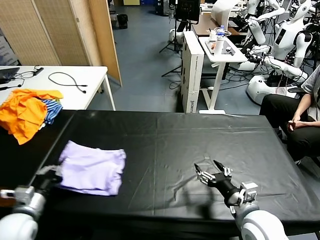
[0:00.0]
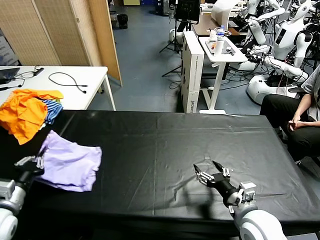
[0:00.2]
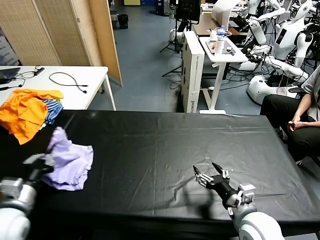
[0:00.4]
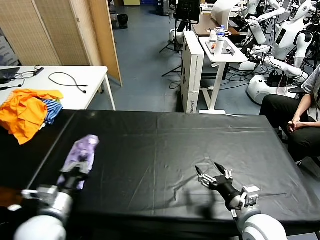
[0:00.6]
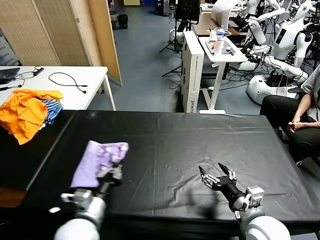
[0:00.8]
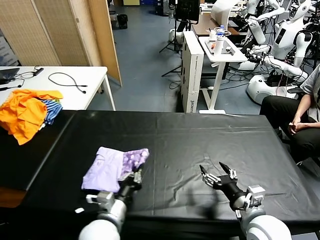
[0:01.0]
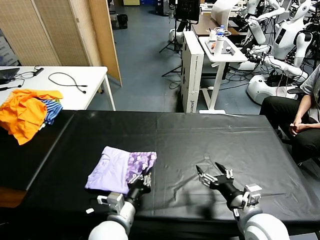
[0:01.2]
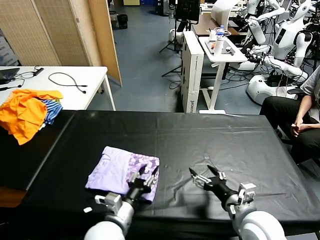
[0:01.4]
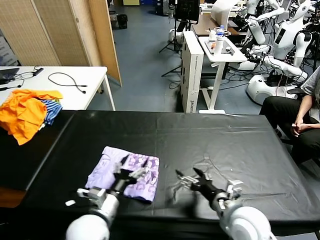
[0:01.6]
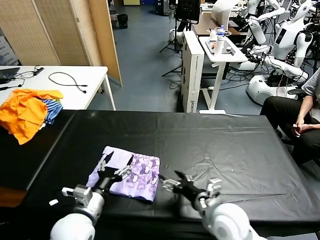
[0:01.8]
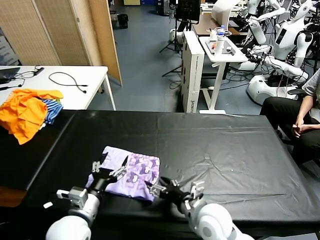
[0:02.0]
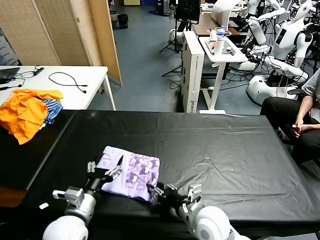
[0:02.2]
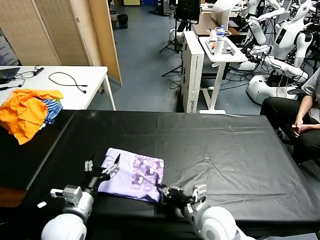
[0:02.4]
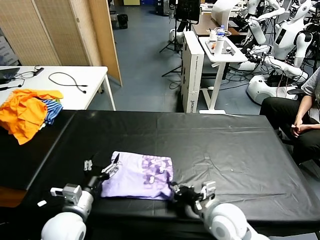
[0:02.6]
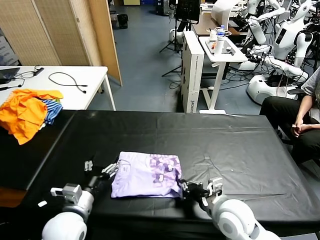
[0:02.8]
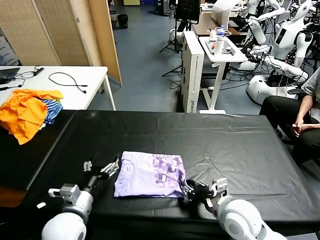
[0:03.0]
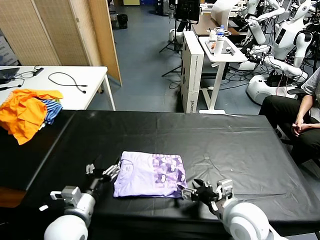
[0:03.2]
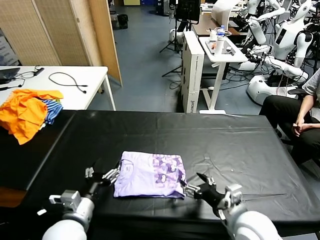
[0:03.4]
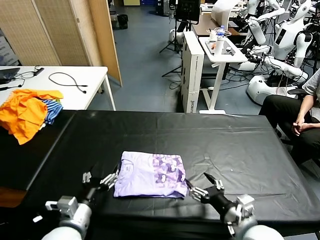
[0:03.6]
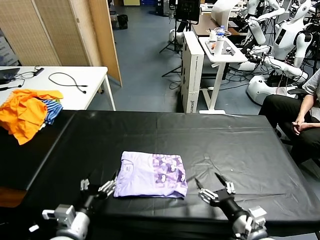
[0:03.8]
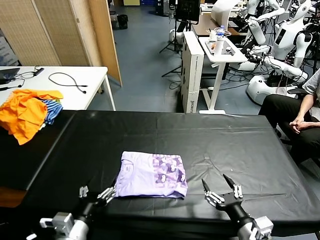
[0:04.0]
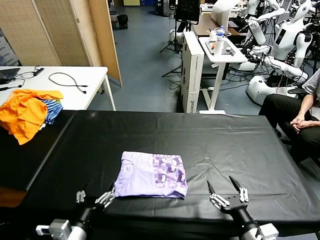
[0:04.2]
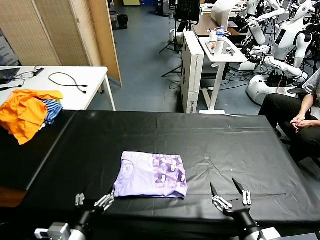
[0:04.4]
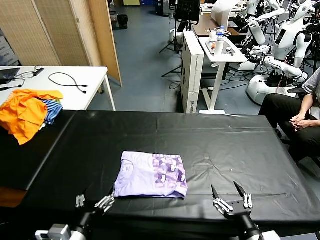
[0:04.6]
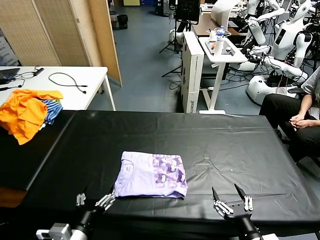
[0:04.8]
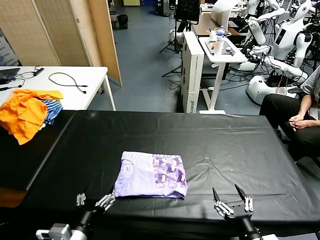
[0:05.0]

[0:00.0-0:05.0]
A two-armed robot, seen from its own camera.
Task of the whole recording: fold and organize the clothes.
Step, 0:01.8 to 0:03.4: Drag the clothes to the center of the table.
0:00.0 to 0:01.6: The left gripper heads to the right, covering roughly 20 cm, and opens.
0:01.6 to 0:03.4: The right gripper reaches approximately 10 cm to the left, then returns, and closes and opens again, while the left gripper is displaced to the left by some 5 cm.
0:03.4 to 0:05.0: The left gripper goes about 10 cm backward. The right gripper goes roughly 15 cm backward and downward.

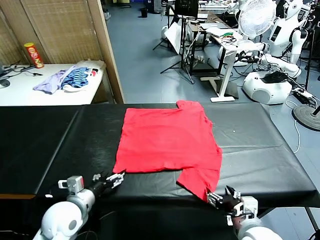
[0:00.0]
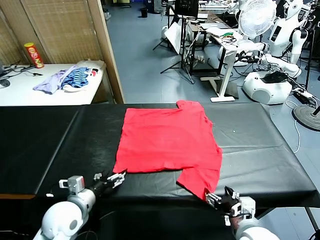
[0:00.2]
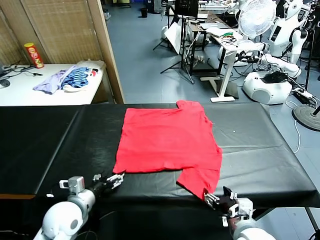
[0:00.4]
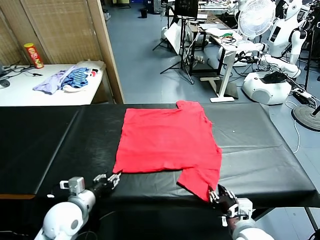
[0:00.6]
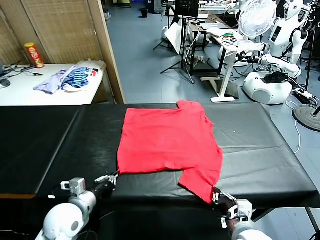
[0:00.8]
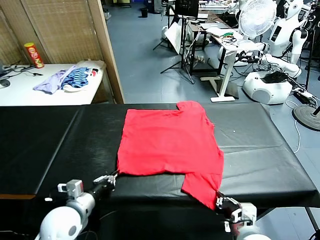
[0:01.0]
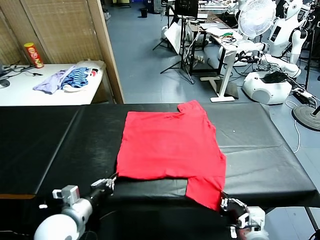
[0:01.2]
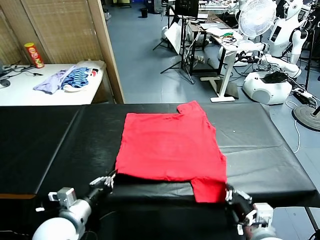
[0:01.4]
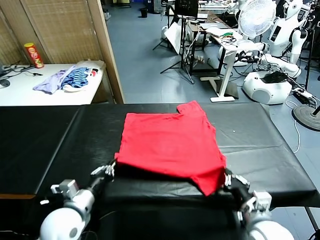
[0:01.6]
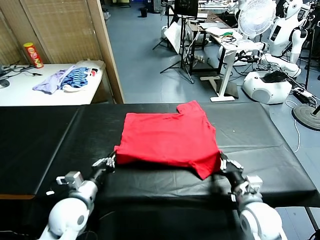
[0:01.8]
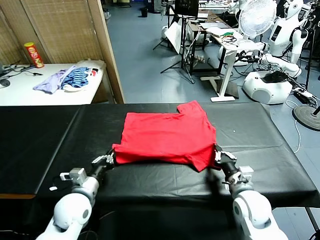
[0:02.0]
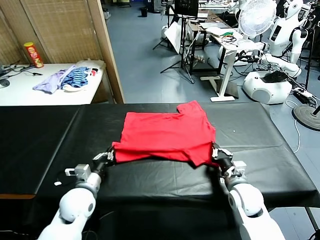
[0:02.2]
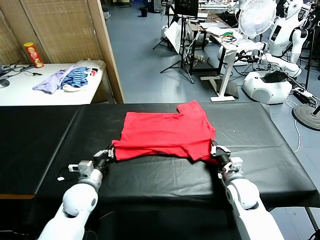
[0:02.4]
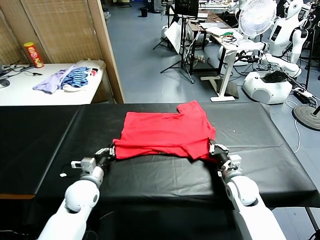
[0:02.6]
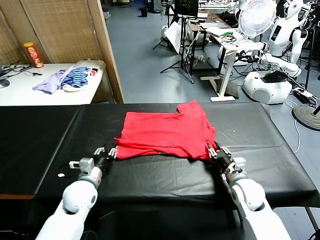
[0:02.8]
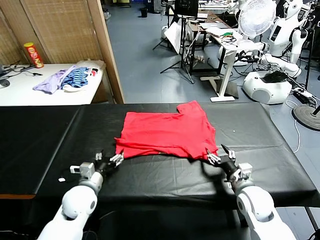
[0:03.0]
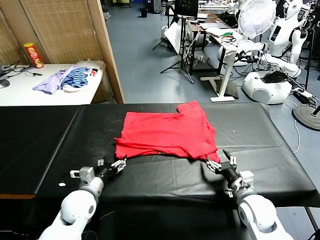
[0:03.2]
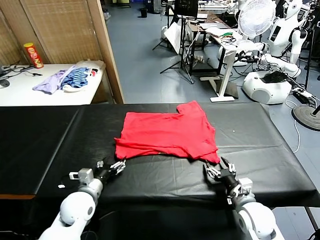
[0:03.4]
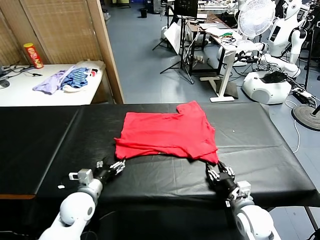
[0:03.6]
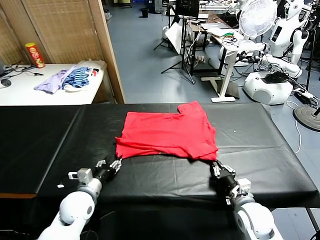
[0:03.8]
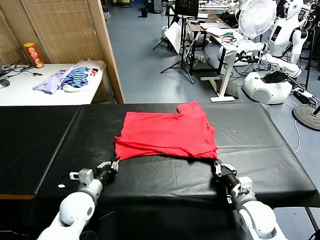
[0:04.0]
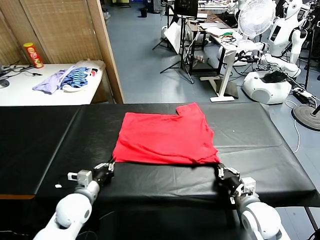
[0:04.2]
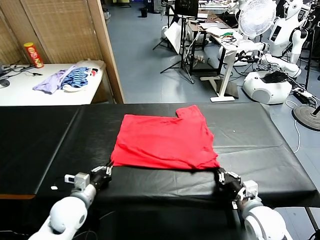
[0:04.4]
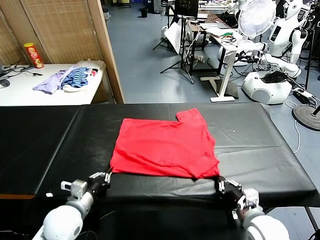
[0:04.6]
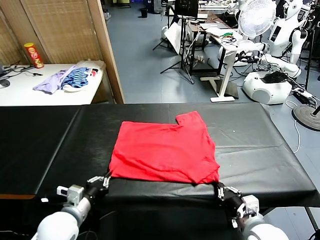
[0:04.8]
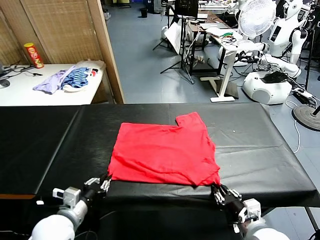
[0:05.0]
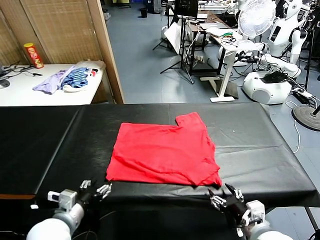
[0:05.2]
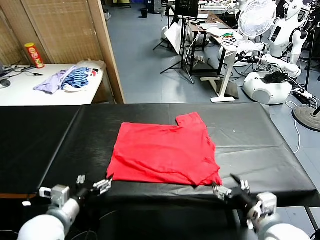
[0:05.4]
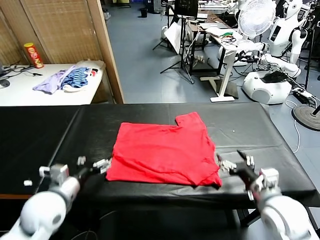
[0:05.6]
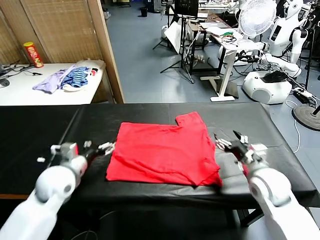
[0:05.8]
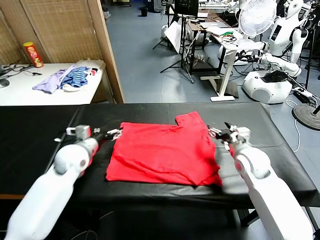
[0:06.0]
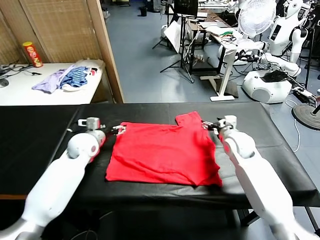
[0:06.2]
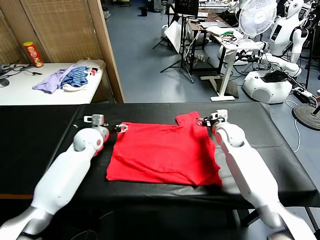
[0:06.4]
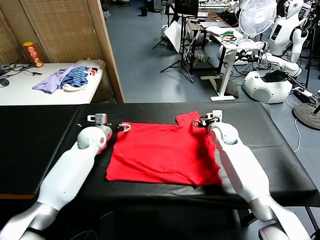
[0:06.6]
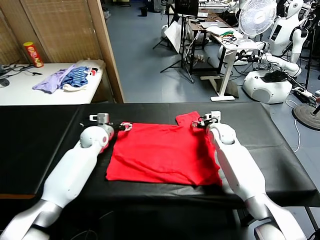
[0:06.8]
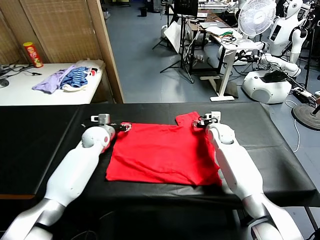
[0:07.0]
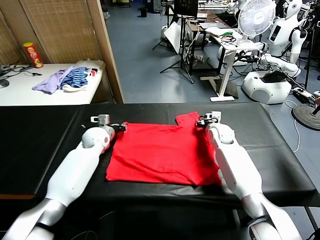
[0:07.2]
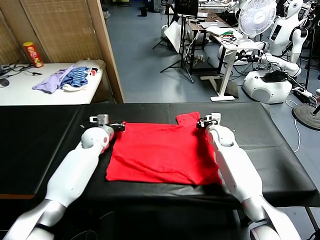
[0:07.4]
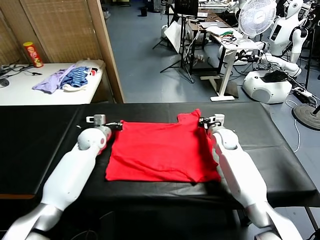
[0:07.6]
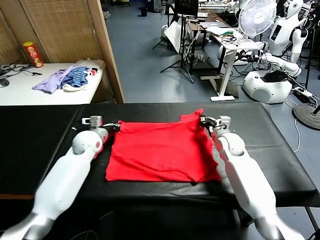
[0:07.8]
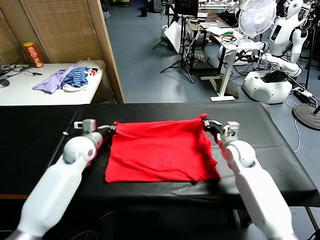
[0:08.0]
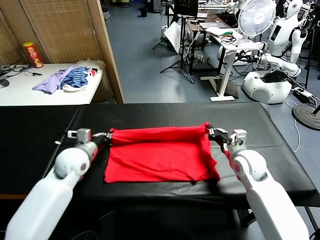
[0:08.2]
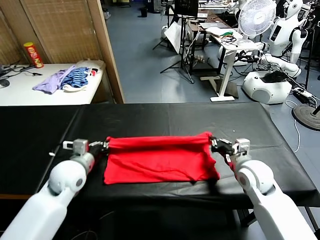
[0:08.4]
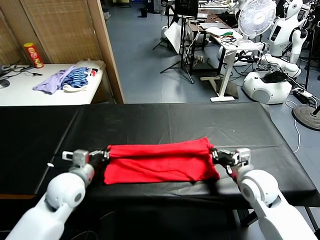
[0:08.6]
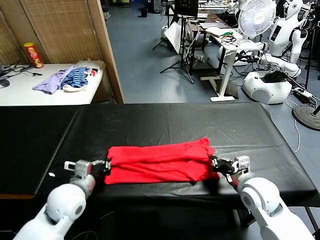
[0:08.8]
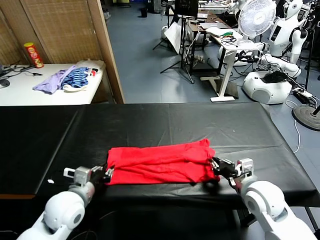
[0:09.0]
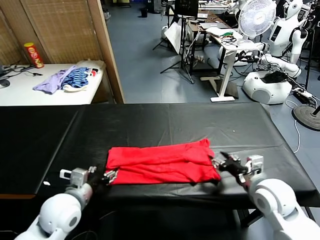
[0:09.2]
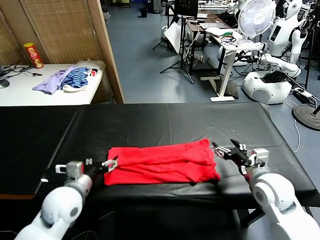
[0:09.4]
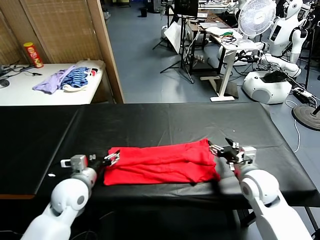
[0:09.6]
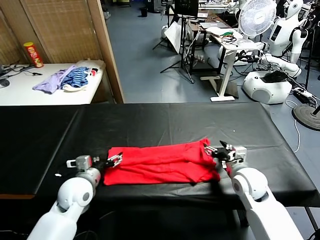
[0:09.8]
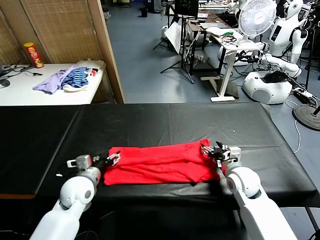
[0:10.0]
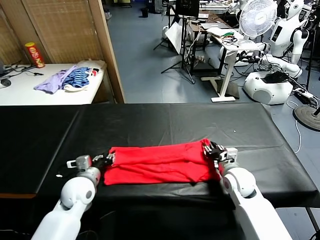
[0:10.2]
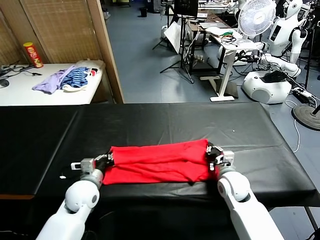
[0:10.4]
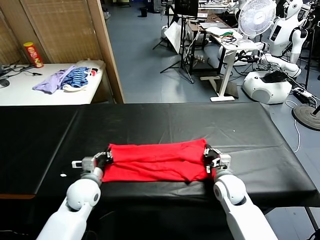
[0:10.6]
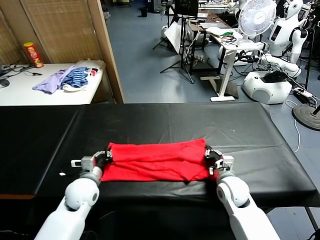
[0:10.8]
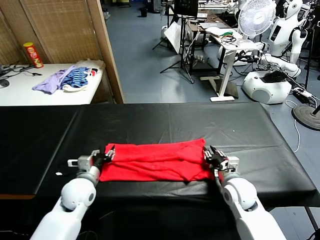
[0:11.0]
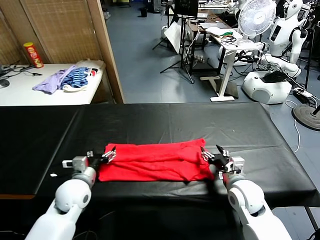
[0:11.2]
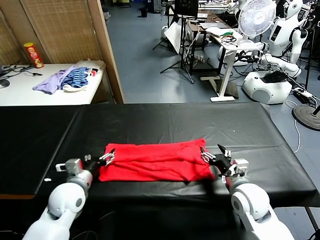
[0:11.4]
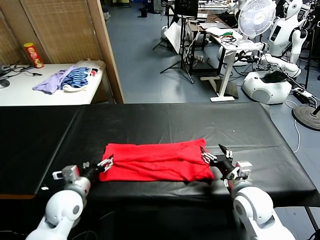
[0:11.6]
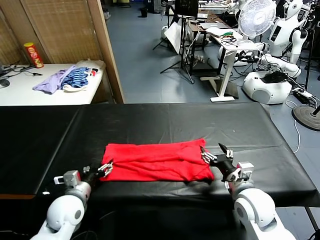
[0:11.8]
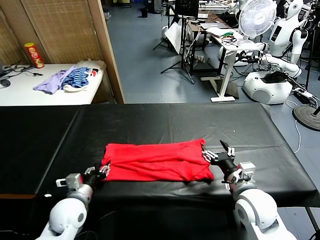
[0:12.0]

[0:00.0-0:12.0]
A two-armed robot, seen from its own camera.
Task of the whole recording: fold and organize the clothes.
Step, 0:00.0 to 0:01.0: use both grippers simultaneously to clamp the lower edge of the clothing fabric.
Step, 0:01.2 to 0:02.8: use both grippers to drag the lower edge of the fabric forward and fold it over the upper edge.
Step, 0:03.0 to 0:05.2: Drag the clothes downward with both gripper.
Step, 0:05.4 to 0:07.6: use both grippers simultaneously to clamp the upper edge of the clothing fabric.
Step, 0:08.0 to 0:09.0: use both grippers to drag the upper edge of the fabric backward and fold it over the lower edge.
0:01.6 to 0:03.0: The right gripper travels forward and back again, approximately 10 cm each way, and opens its fingers; the left gripper shifts roughly 10 cm forward and downward, and opens.
0:03.0 to 0:04.4: The right gripper heads backward, covering approximately 5 cm, and closes its fingers. The left gripper closes.
0:04.4 to 0:06.0: The left gripper is displaced forward and upward by some 20 cm, and opens; the right gripper is displaced forward by approximately 25 cm, and opens.
0:06.0 to 0:07.6: The right gripper reaches roughly 10 cm forward, then returns, and closes; the left gripper is displaced forward by about 10 cm, and closes.
0:07.6 to 0:09.0: The grippers both shift backward by roughly 25 cm. The left gripper opens. The right gripper opens its fingers.
0:09.0 to 0:10.4: The left gripper is displaced forward and downward by approximately 10 cm, and closes. The right gripper goes about 15 cm downward, forward and to the left, and closes up.
0:10.4 to 0:12.0: The left gripper heads backward, covering about 5 cm, and opens. The right gripper travels backward and upward by some 15 cm, and opens.

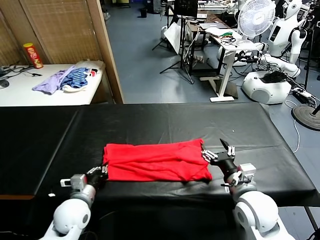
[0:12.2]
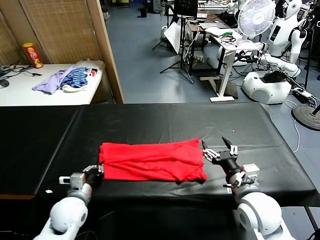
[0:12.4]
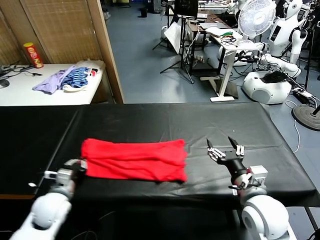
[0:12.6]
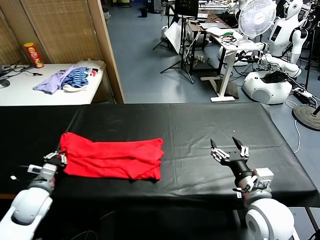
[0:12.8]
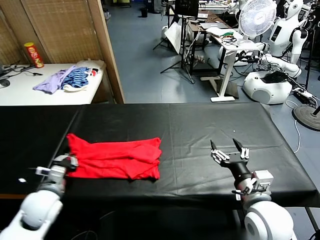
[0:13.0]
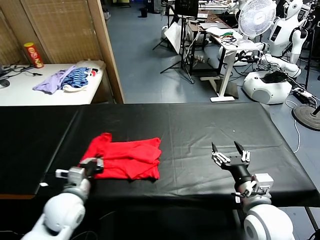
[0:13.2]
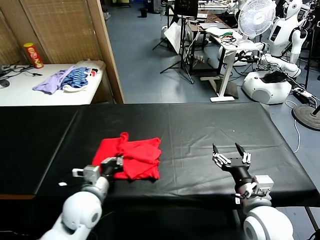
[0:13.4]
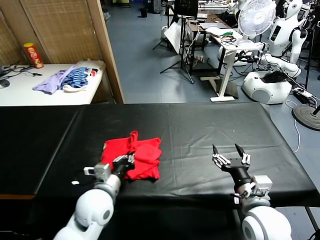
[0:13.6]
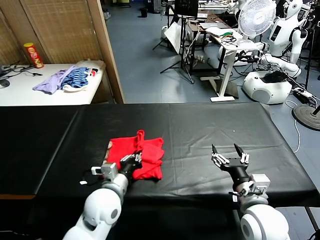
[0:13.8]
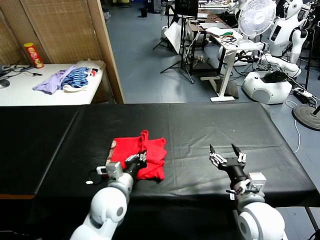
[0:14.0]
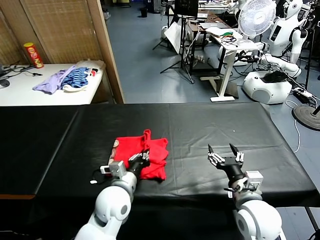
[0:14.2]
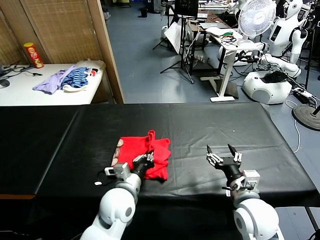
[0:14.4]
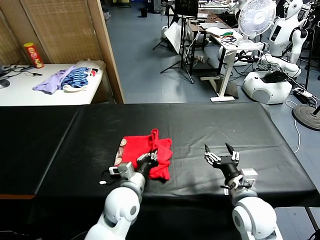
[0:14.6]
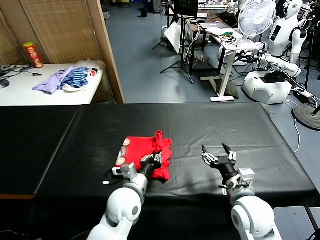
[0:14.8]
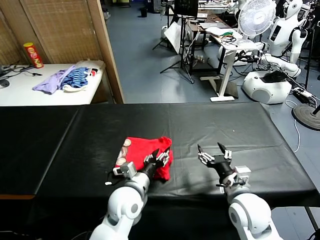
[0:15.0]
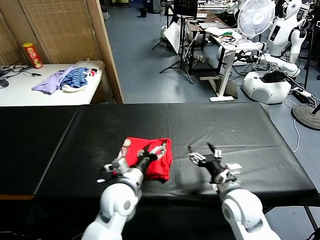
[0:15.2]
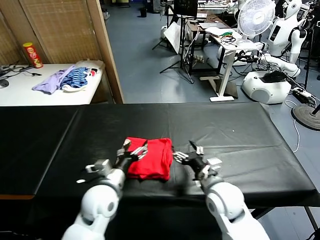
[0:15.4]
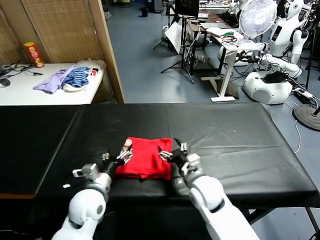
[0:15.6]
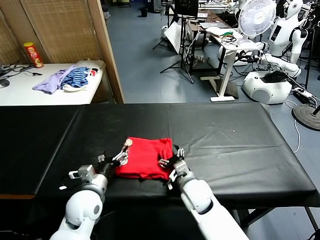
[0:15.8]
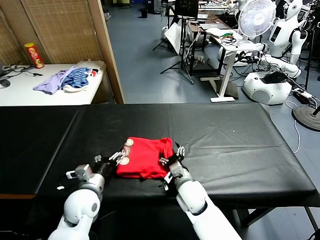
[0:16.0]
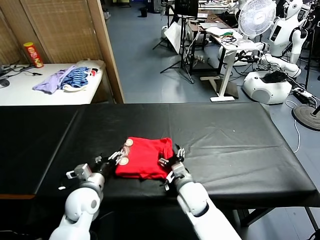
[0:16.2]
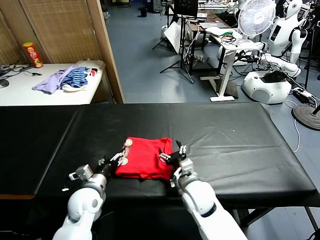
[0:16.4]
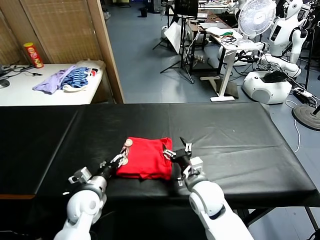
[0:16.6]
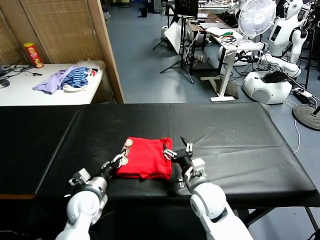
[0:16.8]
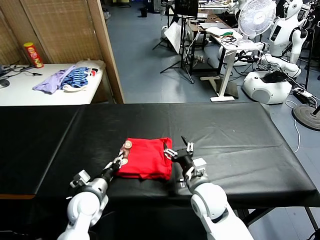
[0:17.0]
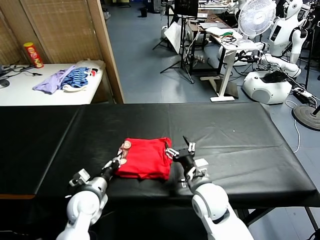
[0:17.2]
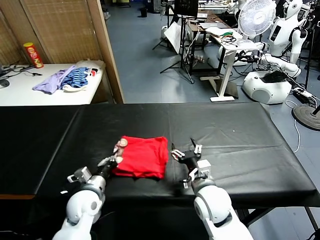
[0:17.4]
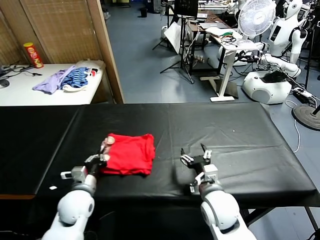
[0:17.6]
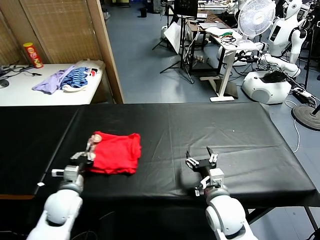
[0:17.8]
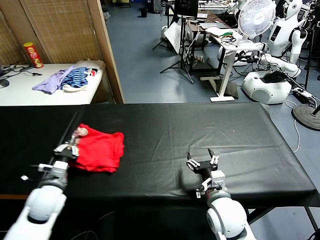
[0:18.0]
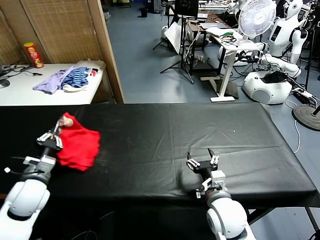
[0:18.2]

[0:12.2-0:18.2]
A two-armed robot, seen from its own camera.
Task of the whole recording: fold and organize the clothes.
Step, 0:12.6 to 0:15.0: use the left gripper to drag the left edge of the fabric to the left and folds it over the right edge.
0:12.2 to 0:13.8: The left gripper moves to the right and upward, about 10 cm.
0:13.8 to 0:15.2: The left gripper opens up, while the right gripper is displaced forward by about 5 cm.
0:15.2 to 0:16.6: The left gripper goes approximately 15 cm to the left and downward; the right gripper goes about 10 cm to the left.
0:16.6 to 0:18.2: The right gripper shifts approximately 5 cm backward. The left gripper heads to the left and upward, covering roughly 15 cm, and closes its fingers.
